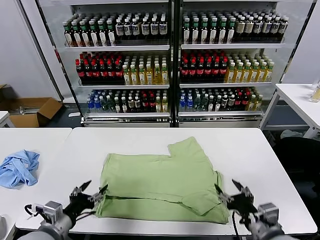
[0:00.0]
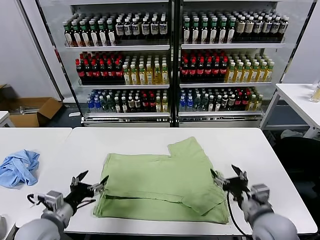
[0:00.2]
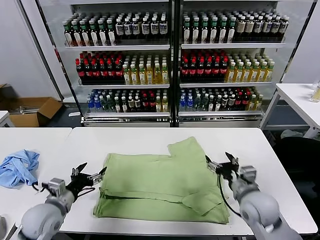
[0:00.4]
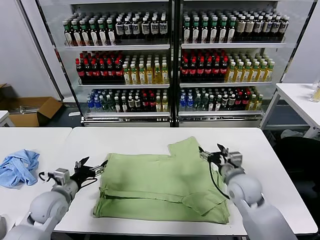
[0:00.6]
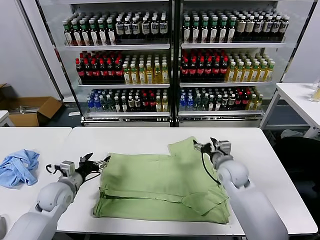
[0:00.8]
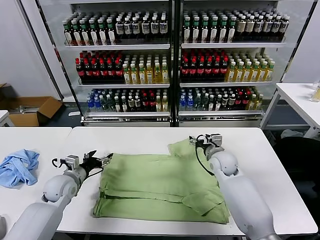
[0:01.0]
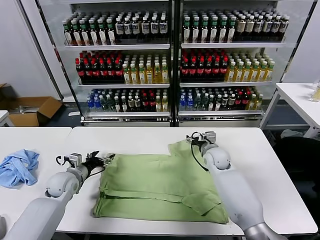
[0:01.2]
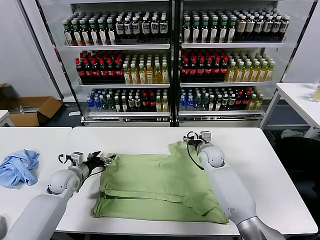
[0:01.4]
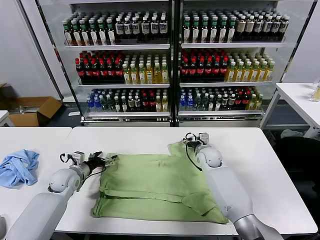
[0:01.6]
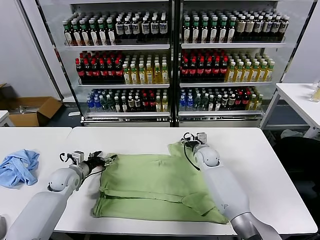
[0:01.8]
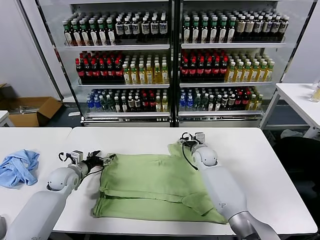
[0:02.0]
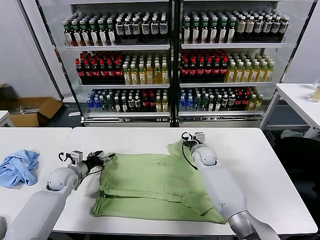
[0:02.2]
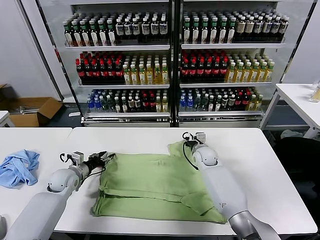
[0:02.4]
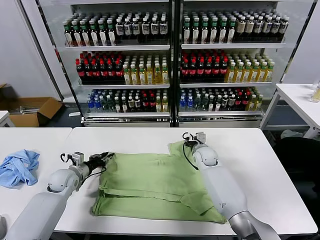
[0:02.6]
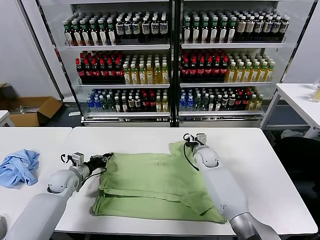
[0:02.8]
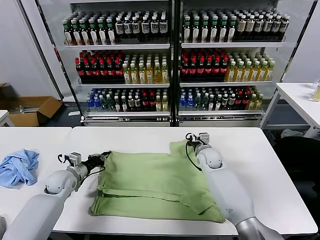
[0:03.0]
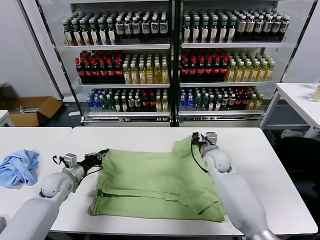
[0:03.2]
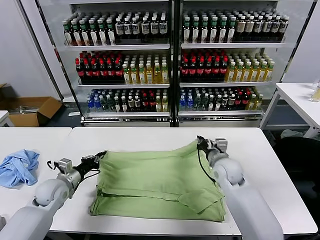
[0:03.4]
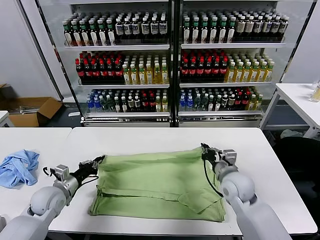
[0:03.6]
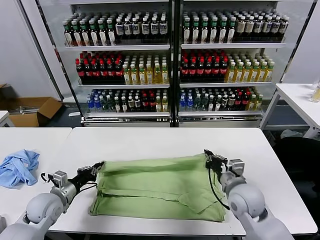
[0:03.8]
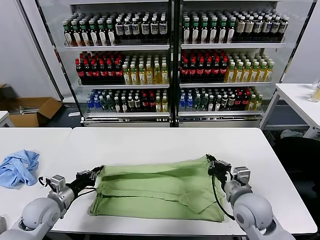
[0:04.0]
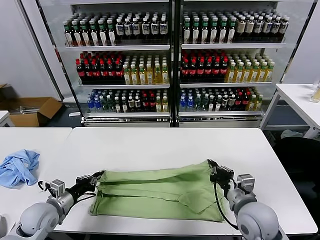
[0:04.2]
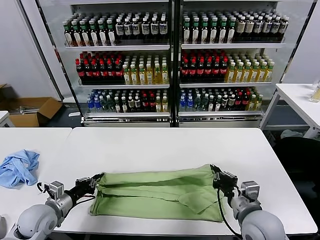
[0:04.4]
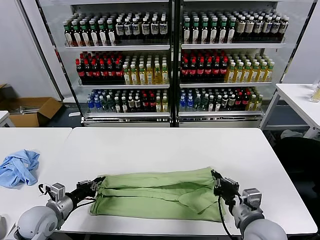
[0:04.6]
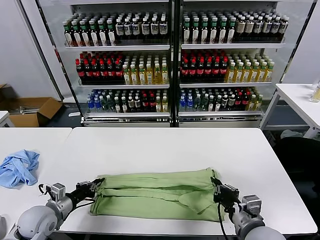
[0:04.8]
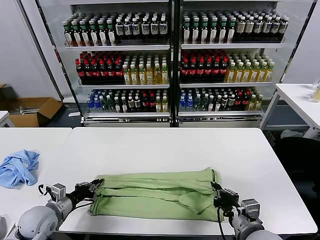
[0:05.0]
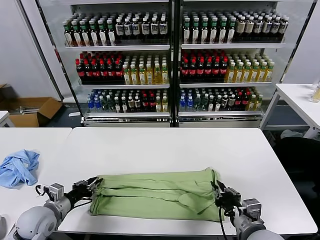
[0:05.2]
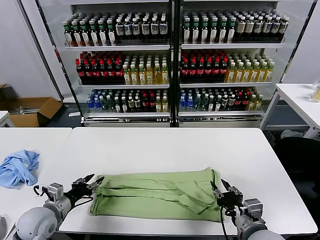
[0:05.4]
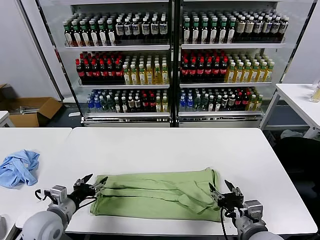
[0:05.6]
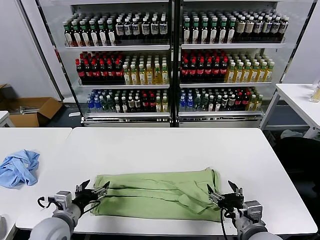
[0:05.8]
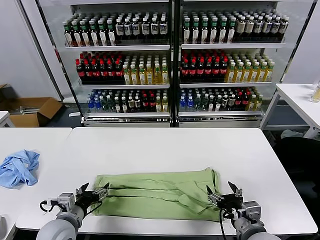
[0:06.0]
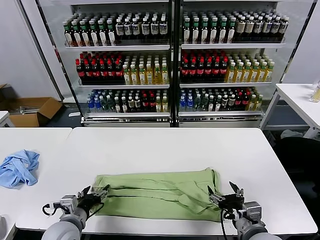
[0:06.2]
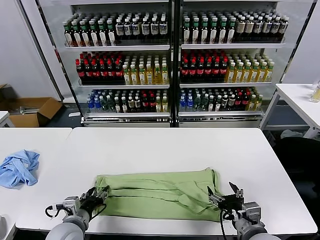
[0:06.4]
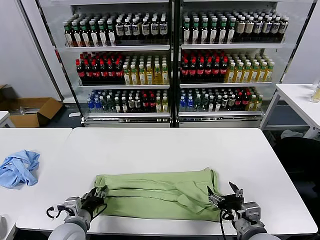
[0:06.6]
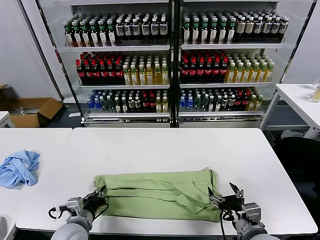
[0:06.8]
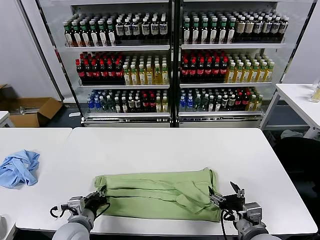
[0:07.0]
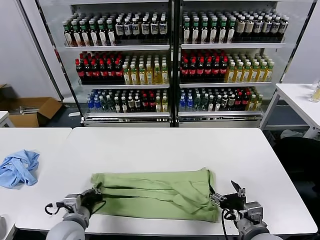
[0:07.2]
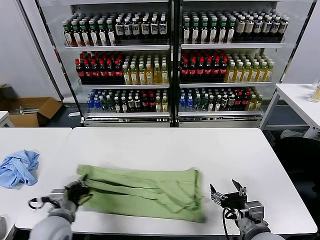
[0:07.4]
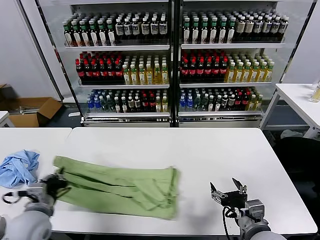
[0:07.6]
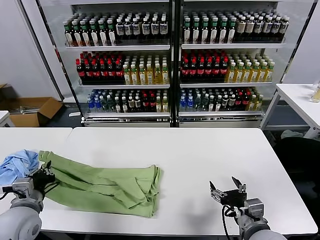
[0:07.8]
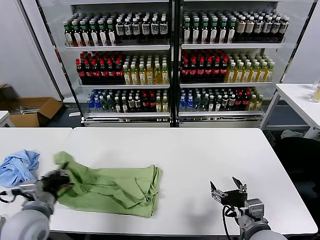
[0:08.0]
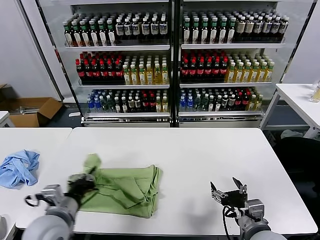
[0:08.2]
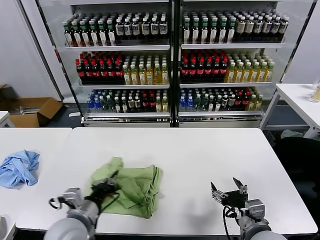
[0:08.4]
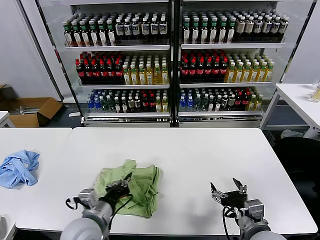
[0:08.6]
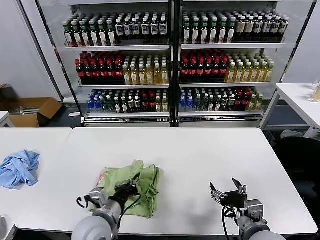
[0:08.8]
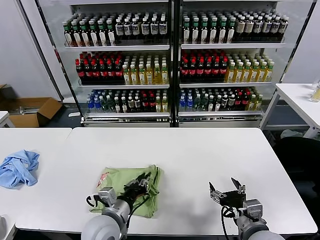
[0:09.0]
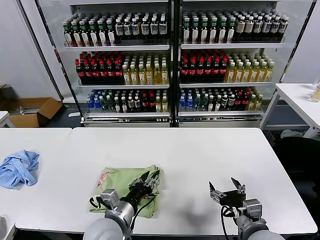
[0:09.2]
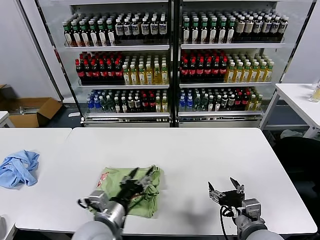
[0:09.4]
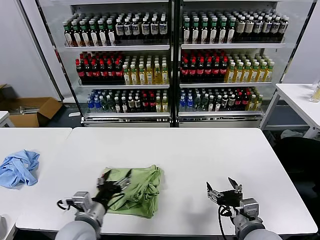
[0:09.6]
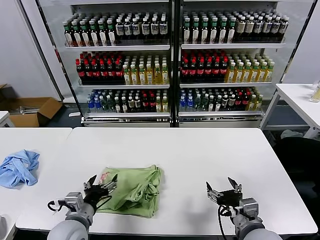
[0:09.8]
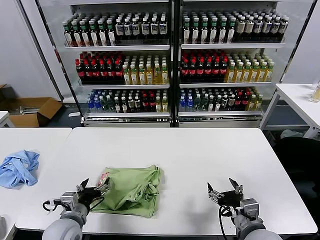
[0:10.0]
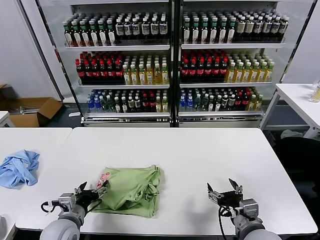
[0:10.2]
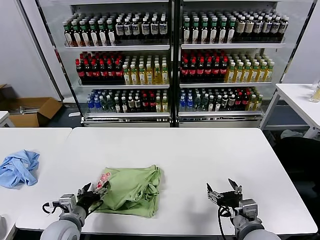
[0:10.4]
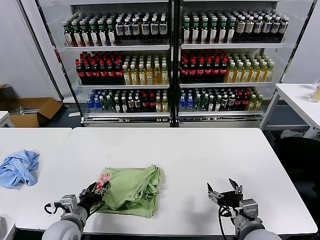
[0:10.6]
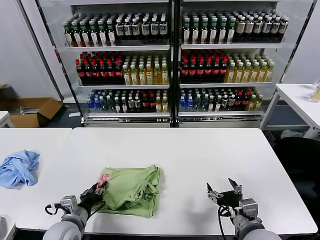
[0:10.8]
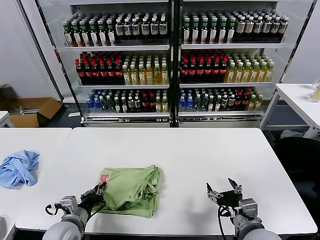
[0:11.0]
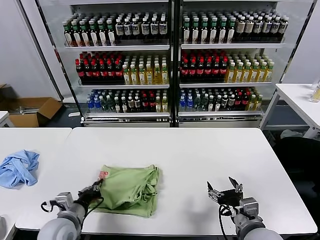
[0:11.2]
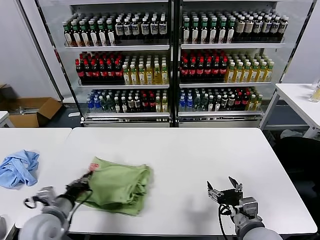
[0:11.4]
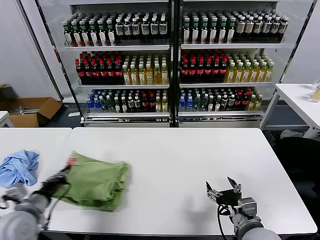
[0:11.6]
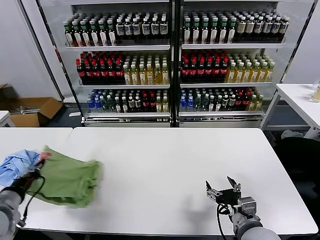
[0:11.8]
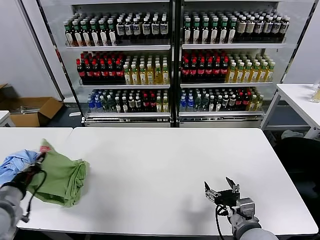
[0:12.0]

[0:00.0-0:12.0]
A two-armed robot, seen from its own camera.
Task of the whole recording: fold and organize the clothes.
Step, 0:00.0 to 0:02.8: use both grippers simultaneously to clamp the upper edge of the clothing fabric.
Step, 0:03.0 to 0:05.4: use both grippers to drag the upper edge of the fabric backward and fold it over the lower edge.
Step, 0:05.6 to 0:07.0: use the left gripper to clamp the left edge of the fabric.
Step, 0:07.2 to 0:09.2: use the left gripper to drag the left edge of the fabric to the left and folds it over the right edge.
0:00.0 to 0:01.6: Both grippers move forward, some 30 cm.
0:01.6 to 0:03.0: The right gripper closes. The left gripper closes its fingers.
0:03.0 to 0:04.4: The left gripper goes approximately 15 cm backward. The right gripper moves backward, roughly 30 cm.
0:04.4 to 0:06.0: The left gripper is displaced to the right by approximately 10 cm, and opens. Meanwhile the right gripper changes place by approximately 5 cm, and opens up.
0:06.0 to 0:07.6: The left gripper ends up about 5 cm from where it was, and closes.
0:07.6 to 0:09.0: The left gripper shifts roughly 15 cm to the right.
0:09.0 to 0:10.4: The left gripper heads to the left and downward, covering roughly 15 cm, and opens up.
0:10.4 to 0:12.0: The left gripper travels to the left and upward by approximately 20 cm, and closes up.

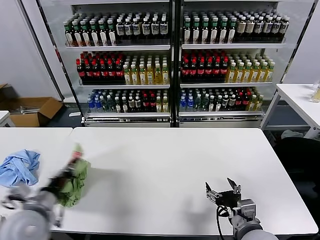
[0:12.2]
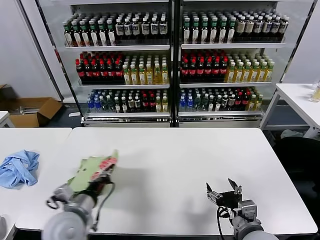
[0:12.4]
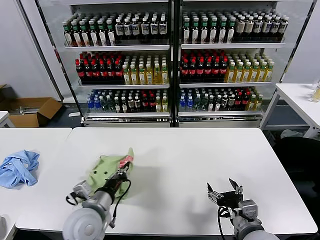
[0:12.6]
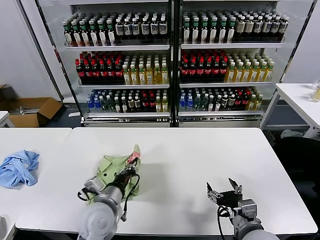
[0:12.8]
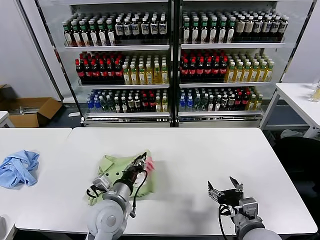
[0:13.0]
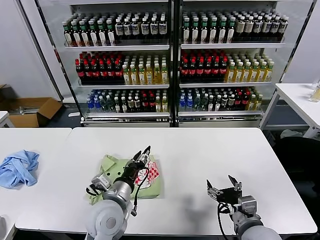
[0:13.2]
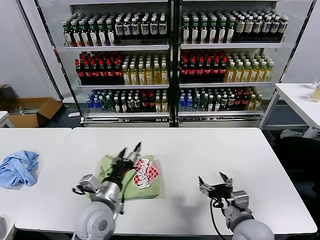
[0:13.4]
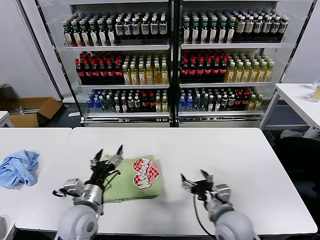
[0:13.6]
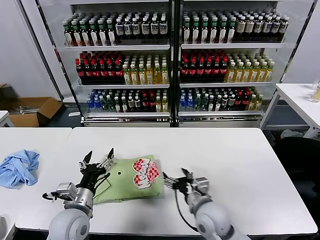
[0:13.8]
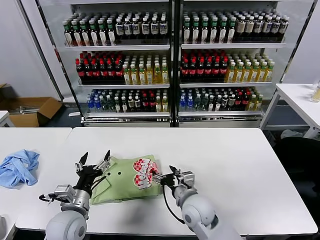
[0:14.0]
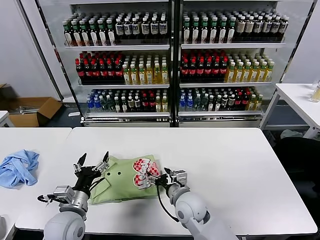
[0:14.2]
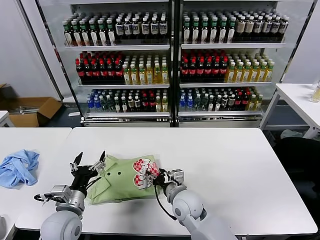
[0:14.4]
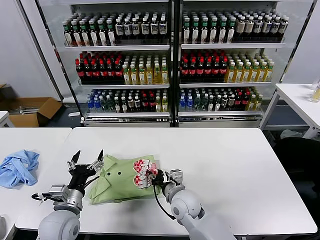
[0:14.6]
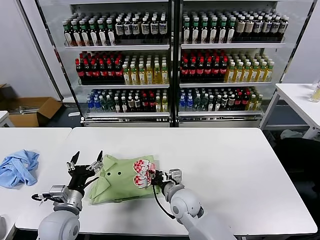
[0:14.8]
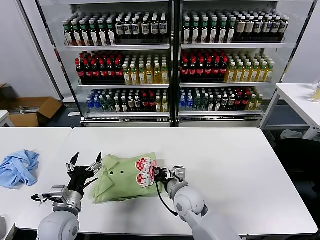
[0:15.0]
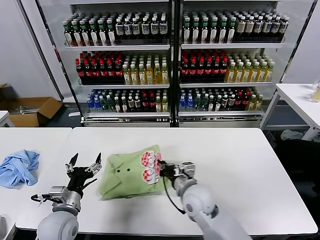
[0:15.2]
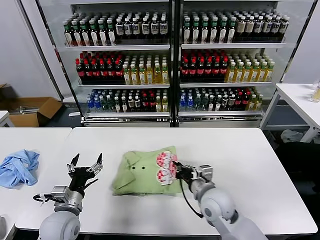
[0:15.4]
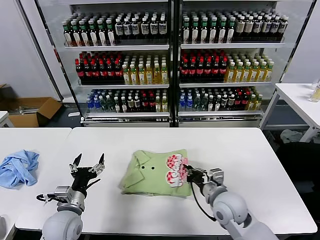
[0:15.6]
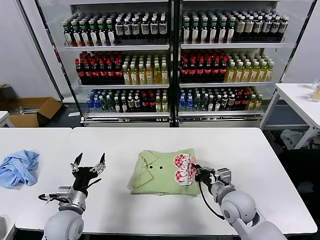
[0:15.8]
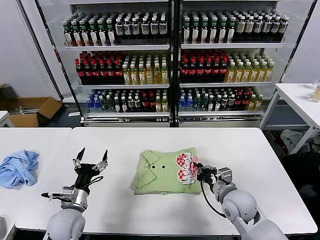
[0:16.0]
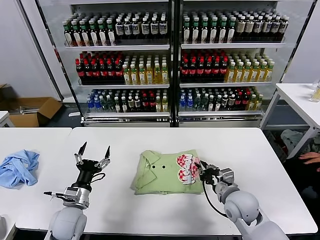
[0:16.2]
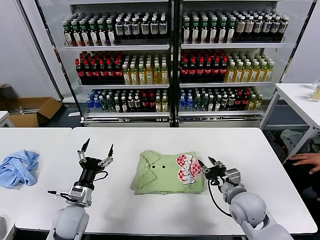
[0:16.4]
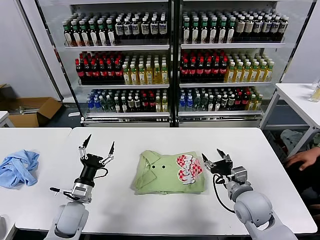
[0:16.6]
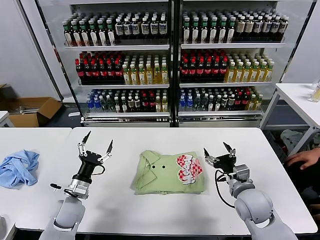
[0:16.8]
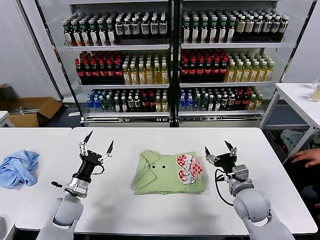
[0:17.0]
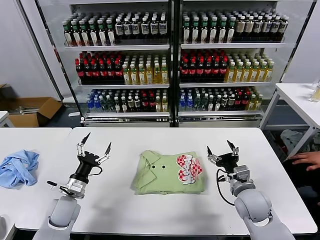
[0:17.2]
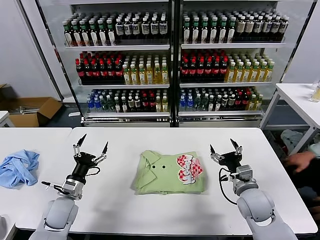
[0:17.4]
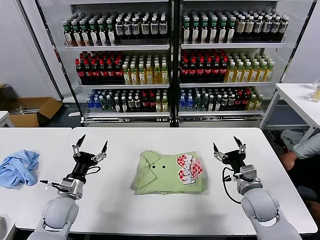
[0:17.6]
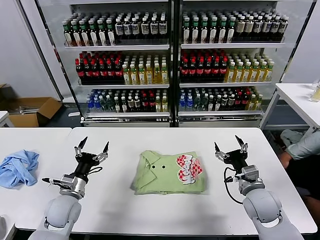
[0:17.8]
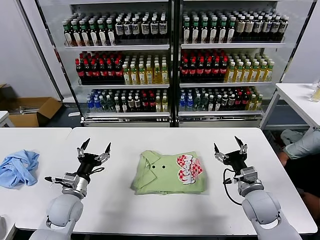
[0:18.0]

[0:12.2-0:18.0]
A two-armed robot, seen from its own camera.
Task of the whole recording: fold and organize the clothes.
Step, 0:13.2 to 0:16.2: Drag the clothes to the center of the table.
0:12.2 to 0:13.6: The left gripper moves to the right, some 15 cm, and opens up. The right gripper ends up roughly 5 cm from where it was.
0:13.6 to 0:15.0: The left gripper travels to the left by roughly 10 cm; the right gripper travels to the left and forward by approximately 15 cm, and closes up.
0:15.0 to 0:16.6: The left gripper ends up approximately 5 cm from where it was. Meanwhile the right gripper heads to the right, covering approximately 20 cm, and opens its fingers.
0:16.6 to 0:18.0: The grippers stay close to where they were, moving slightly.
